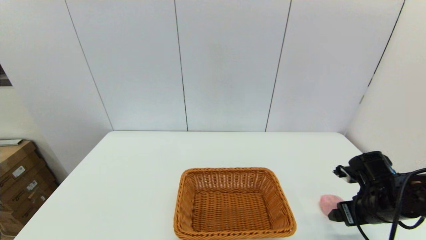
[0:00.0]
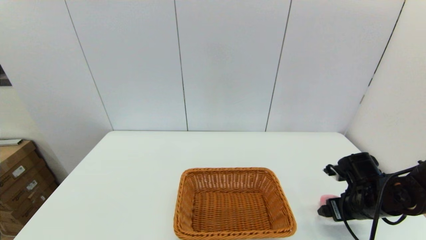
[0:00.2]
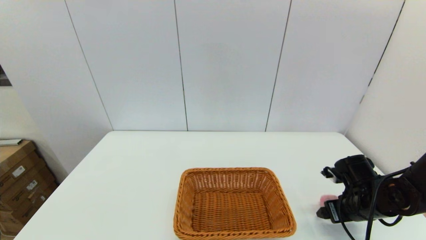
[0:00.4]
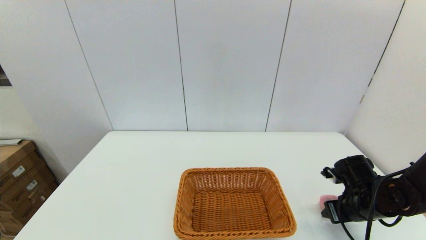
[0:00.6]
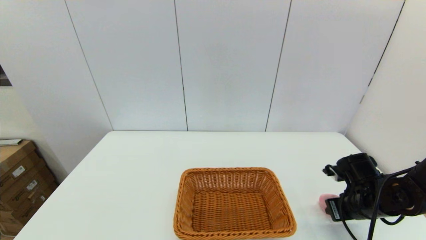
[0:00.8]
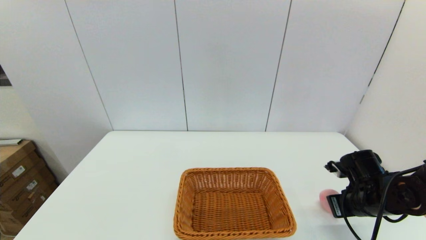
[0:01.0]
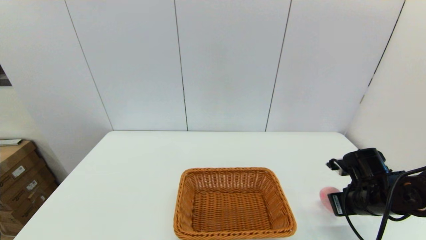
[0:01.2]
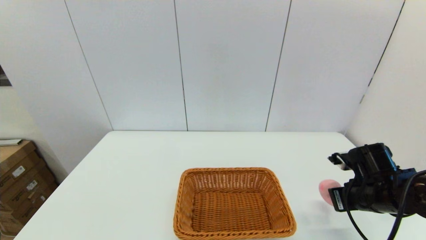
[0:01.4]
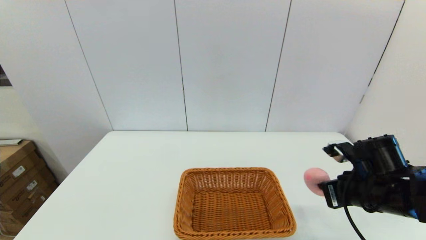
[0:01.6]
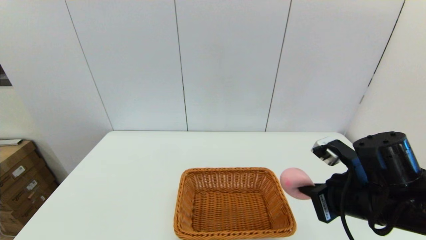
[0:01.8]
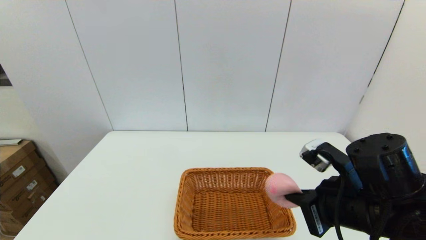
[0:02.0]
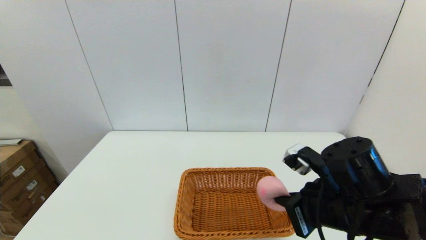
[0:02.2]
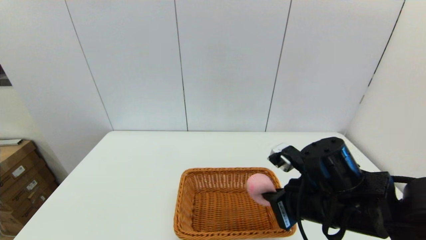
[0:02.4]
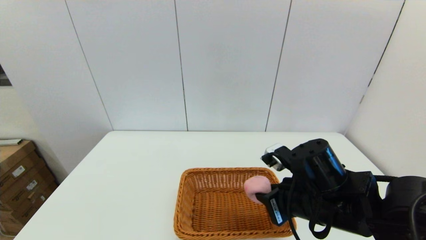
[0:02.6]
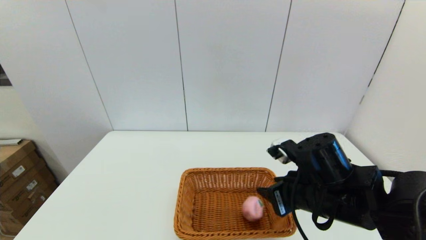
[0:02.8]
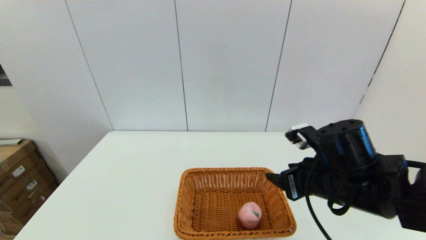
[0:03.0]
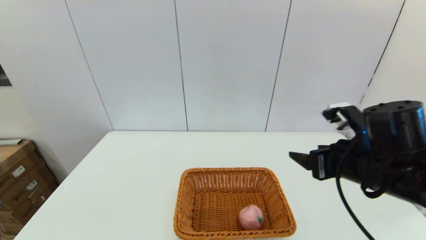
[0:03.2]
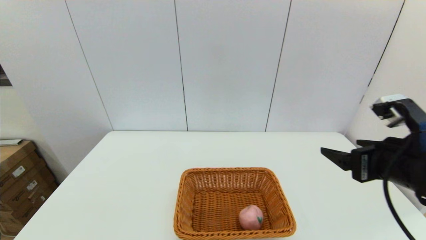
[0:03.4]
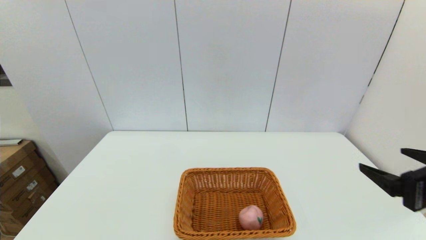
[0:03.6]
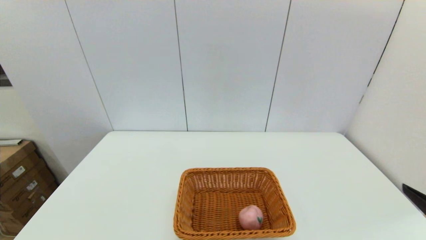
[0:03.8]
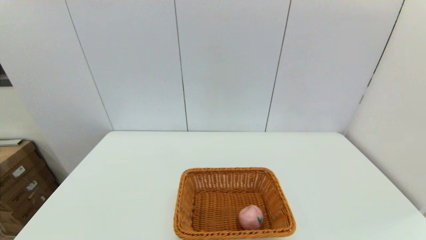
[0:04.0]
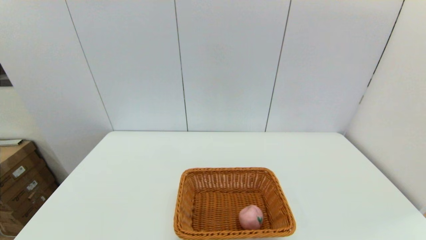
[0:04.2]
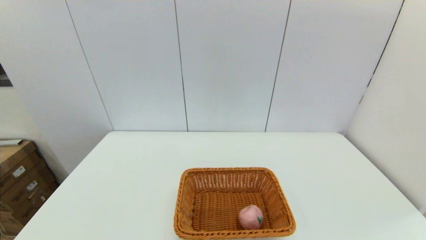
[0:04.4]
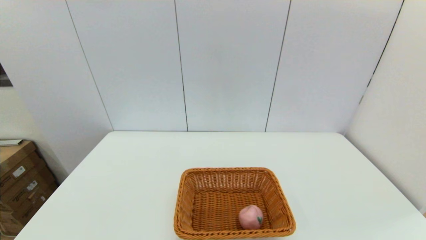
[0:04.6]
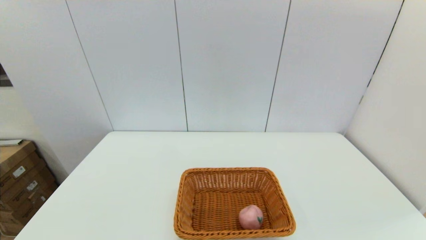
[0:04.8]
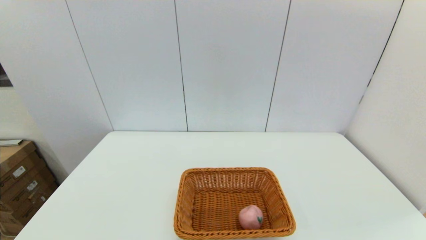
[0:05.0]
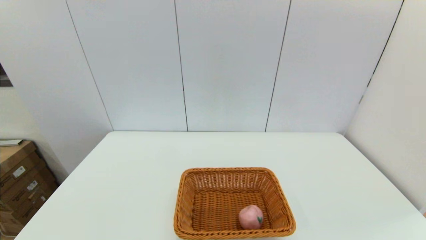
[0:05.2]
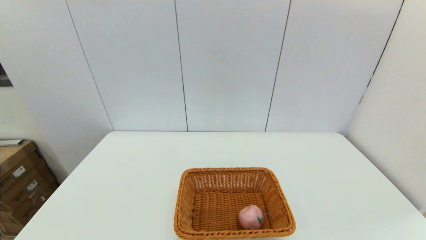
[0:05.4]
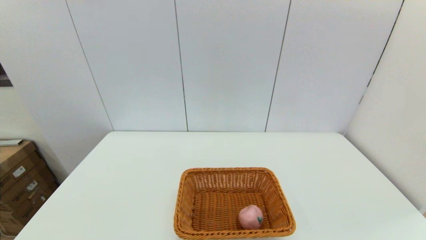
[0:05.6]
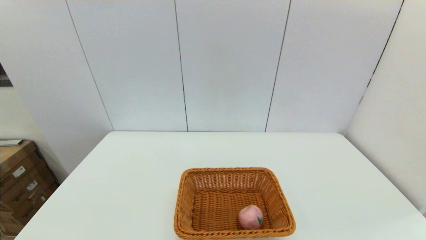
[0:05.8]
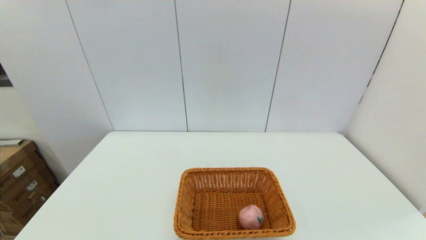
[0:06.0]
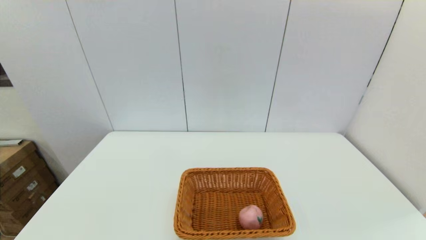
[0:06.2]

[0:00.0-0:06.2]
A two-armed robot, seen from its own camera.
Step, 0:01.2 to 0:02.8: Place the peach into the light basket with the right gripper.
0:00.0 to 0:01.6: The right gripper moves upward and to the left, roughly 10 cm, and closes up.
0:01.6 to 0:03.2: The right gripper travels upward by some 5 cm, and opens.
0:03.2 to 0:04.6: The right gripper shifts some 25 cm backward and to the right.
